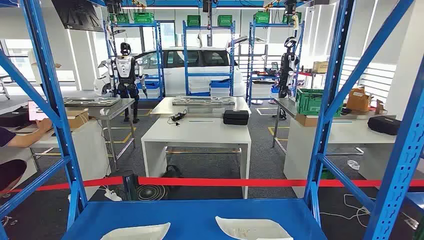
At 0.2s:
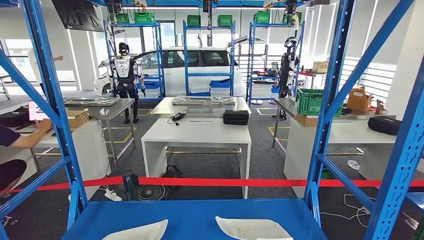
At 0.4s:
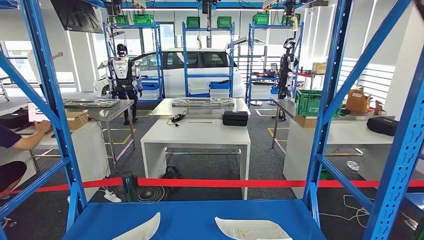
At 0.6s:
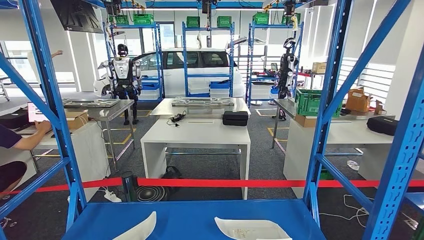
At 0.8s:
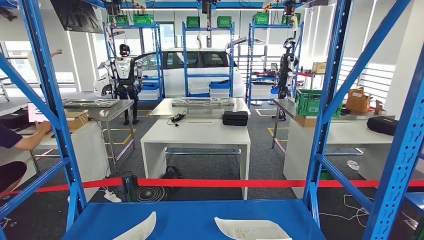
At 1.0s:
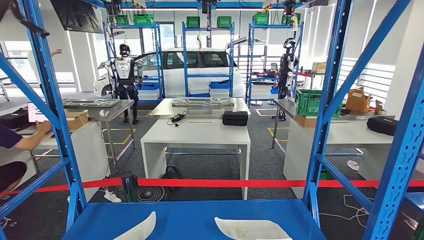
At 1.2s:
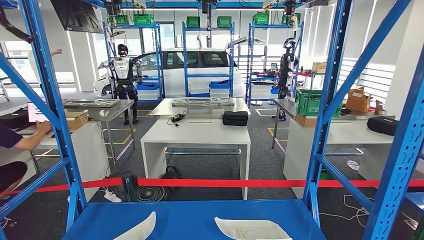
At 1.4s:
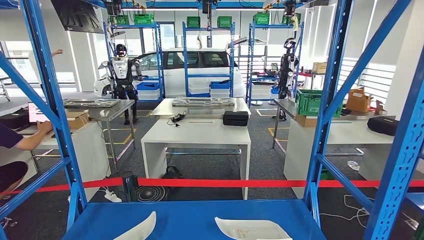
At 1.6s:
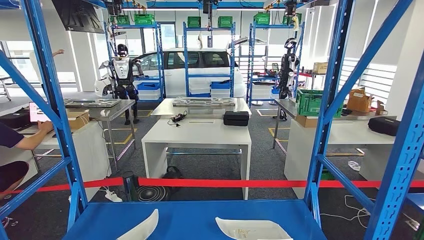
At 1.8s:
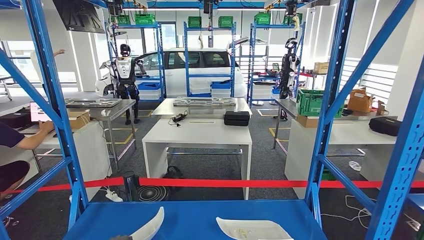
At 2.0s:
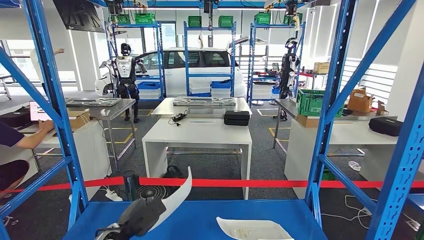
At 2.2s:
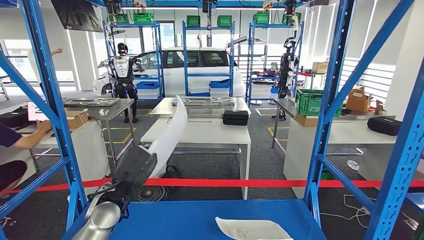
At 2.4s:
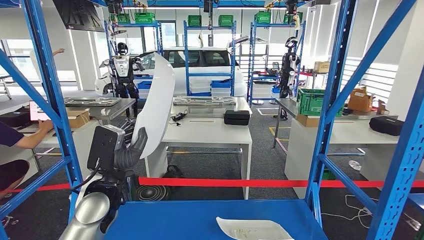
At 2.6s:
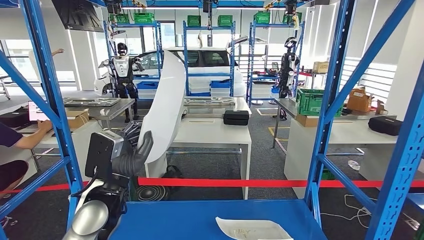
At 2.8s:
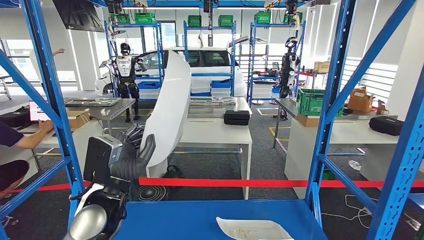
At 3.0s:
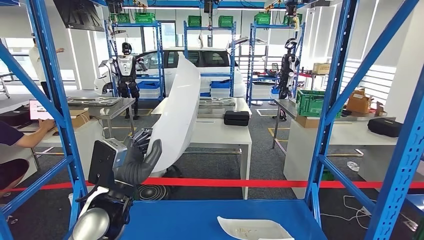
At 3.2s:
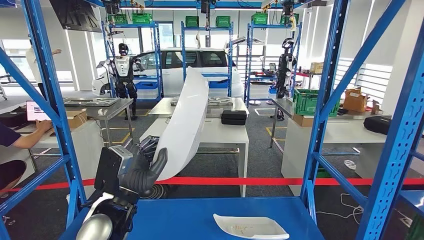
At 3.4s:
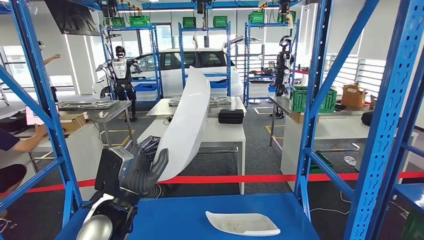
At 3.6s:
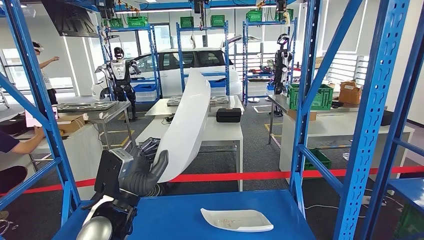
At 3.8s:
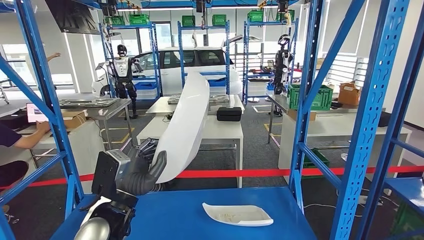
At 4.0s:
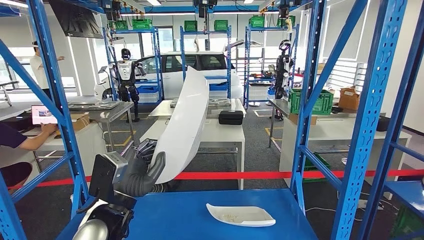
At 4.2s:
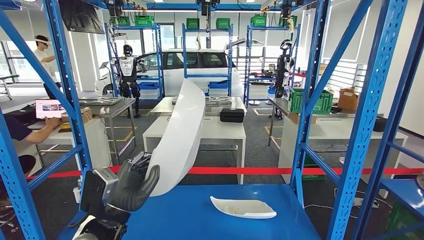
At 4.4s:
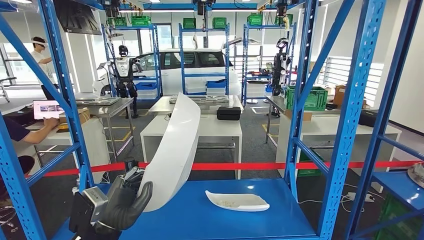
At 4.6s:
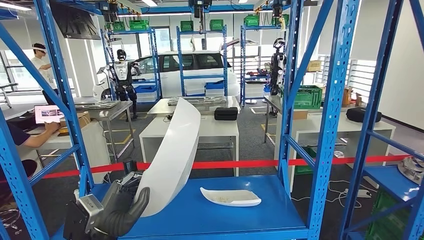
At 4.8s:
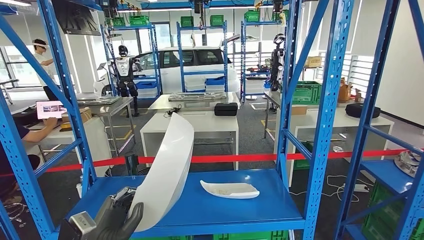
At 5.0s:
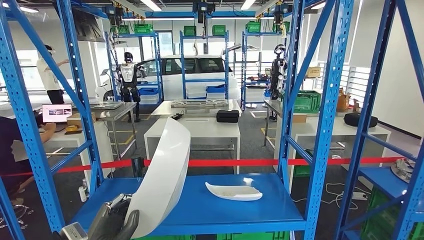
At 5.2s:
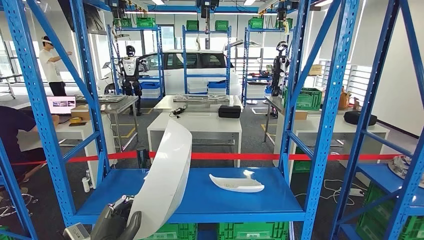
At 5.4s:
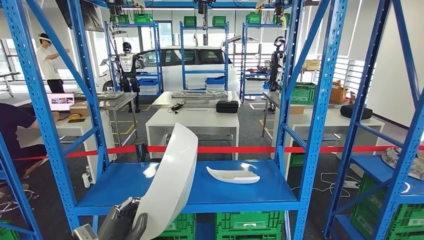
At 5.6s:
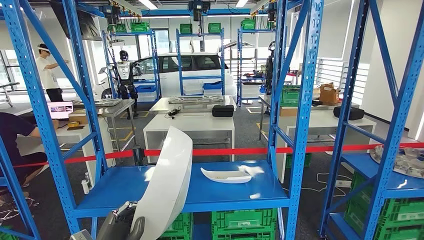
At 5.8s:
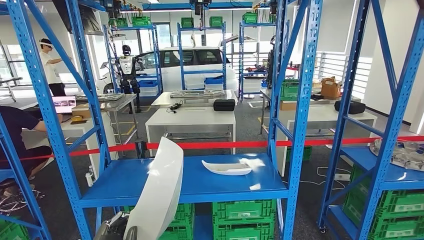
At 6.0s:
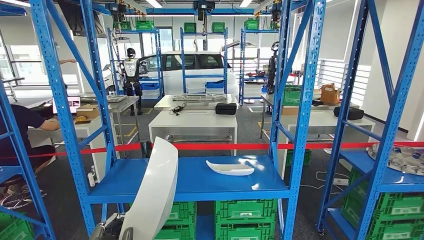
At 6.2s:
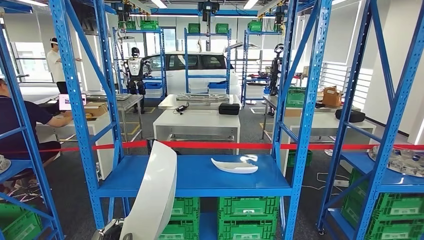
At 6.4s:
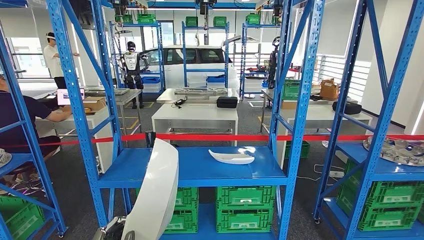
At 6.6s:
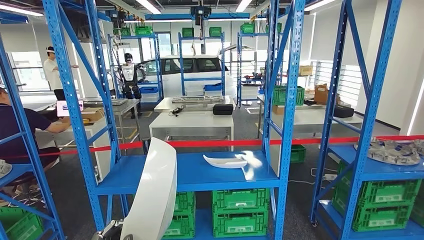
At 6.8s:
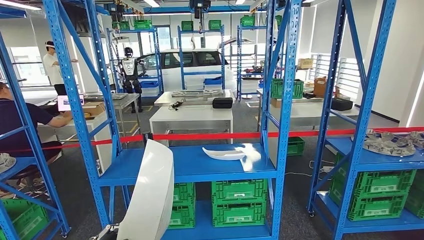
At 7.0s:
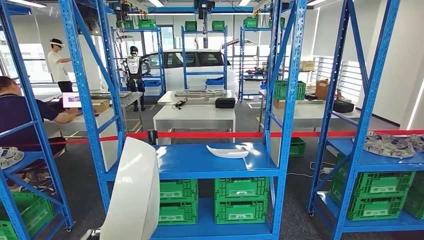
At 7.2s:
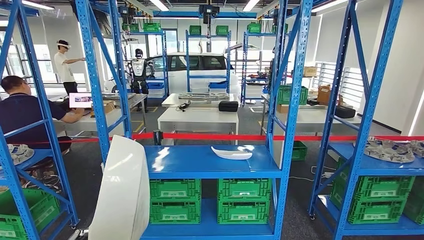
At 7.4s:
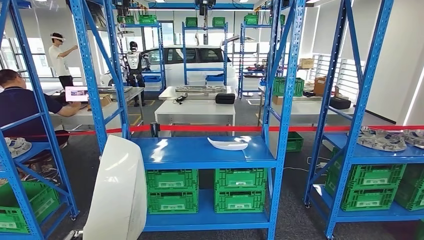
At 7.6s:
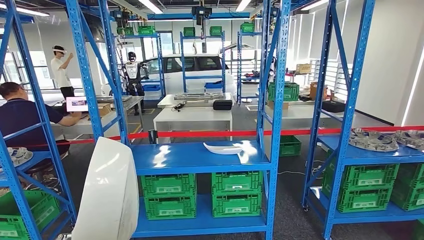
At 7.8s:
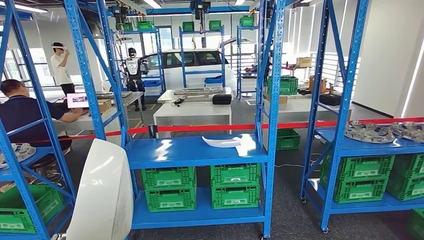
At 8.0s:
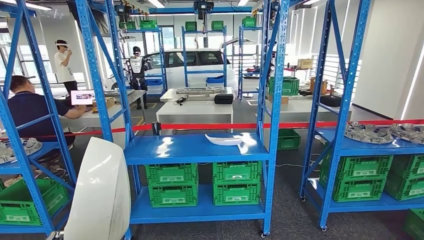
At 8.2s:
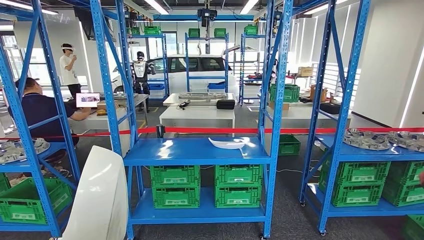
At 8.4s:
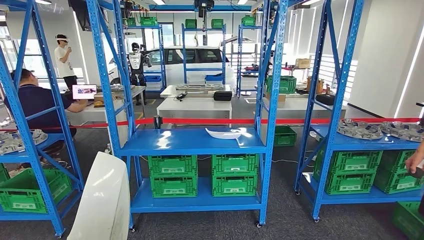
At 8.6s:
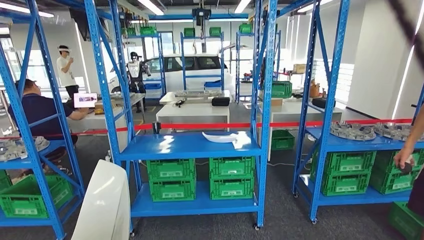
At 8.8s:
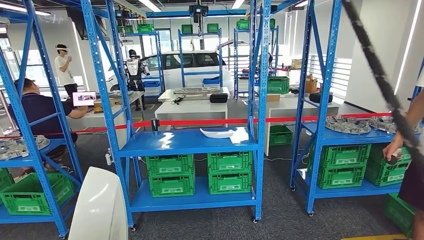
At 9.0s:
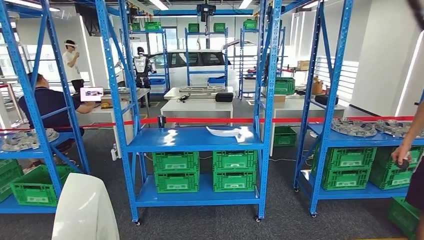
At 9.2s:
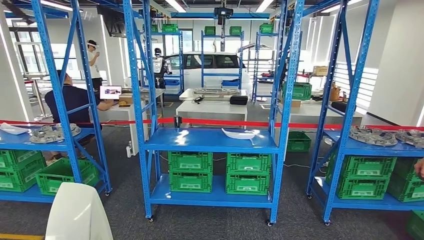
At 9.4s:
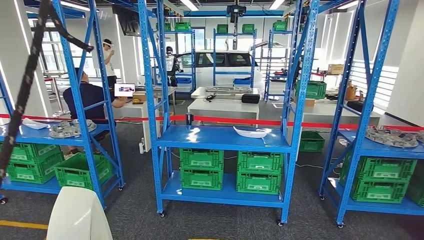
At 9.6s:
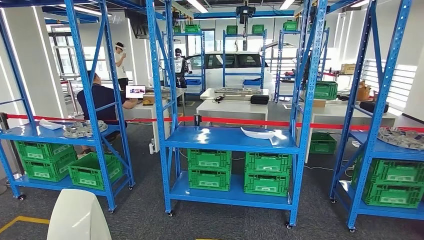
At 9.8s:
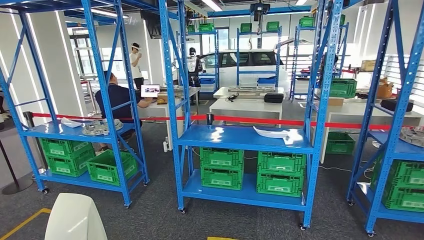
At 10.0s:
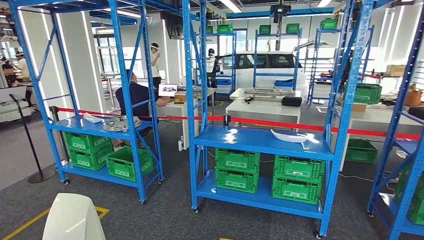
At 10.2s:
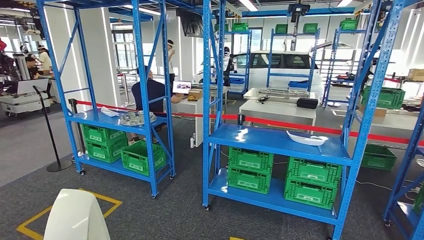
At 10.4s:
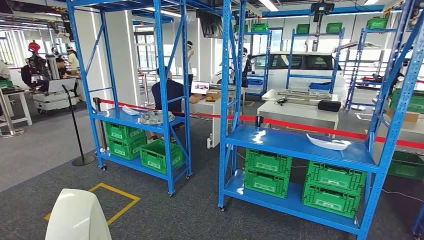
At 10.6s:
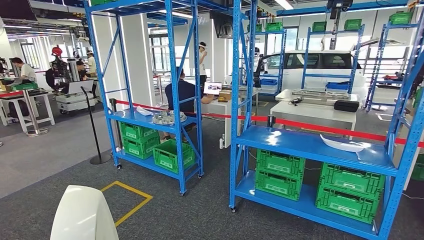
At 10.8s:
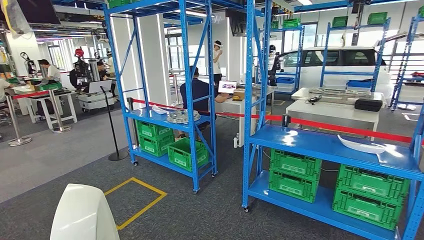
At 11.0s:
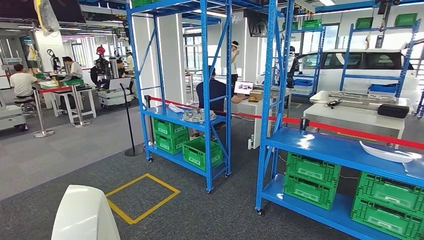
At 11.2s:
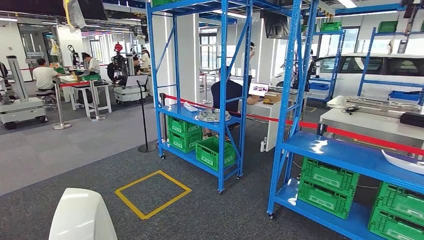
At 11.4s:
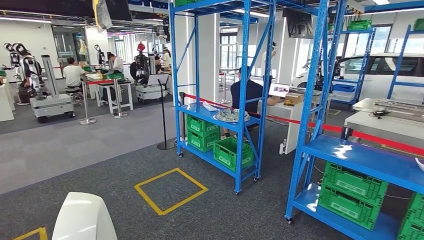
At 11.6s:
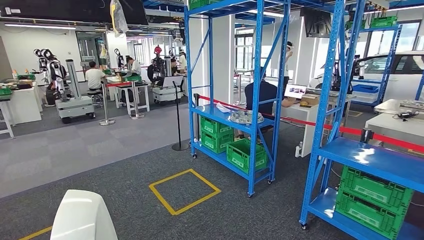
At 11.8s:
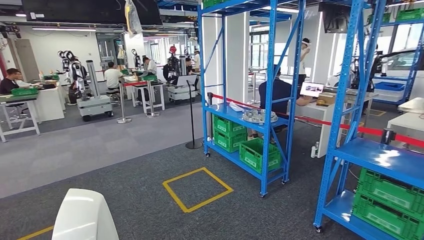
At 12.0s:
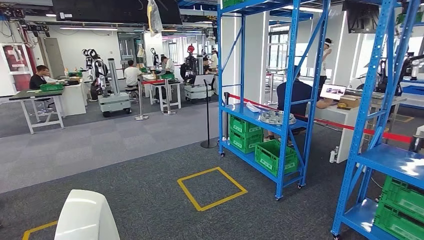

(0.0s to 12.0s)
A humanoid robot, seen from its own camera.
Step, 0.0s - 4.0s: Pick up the small component from the shelf.

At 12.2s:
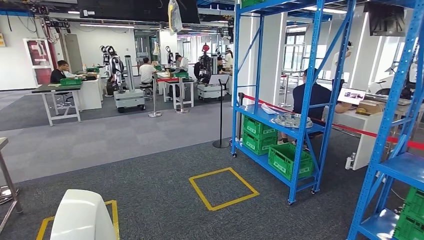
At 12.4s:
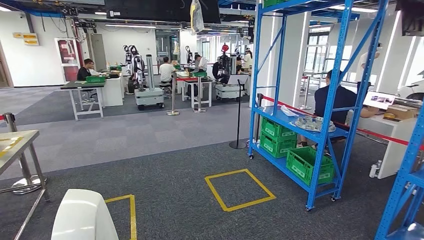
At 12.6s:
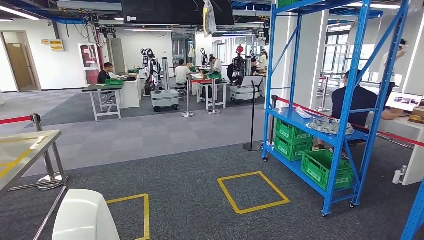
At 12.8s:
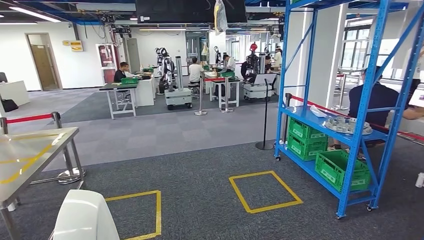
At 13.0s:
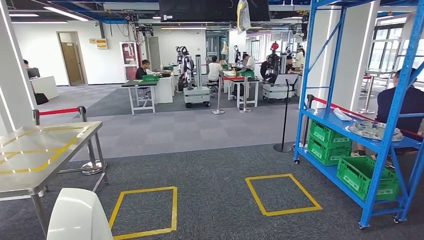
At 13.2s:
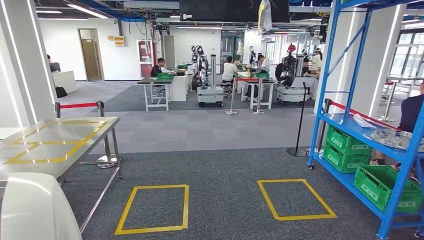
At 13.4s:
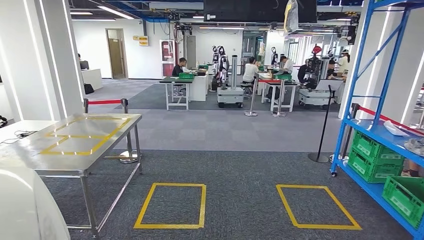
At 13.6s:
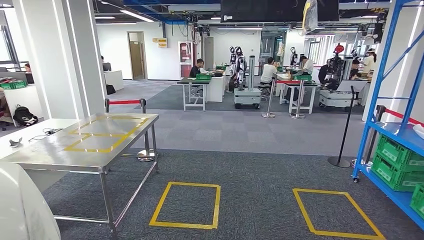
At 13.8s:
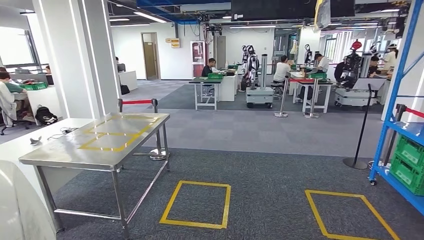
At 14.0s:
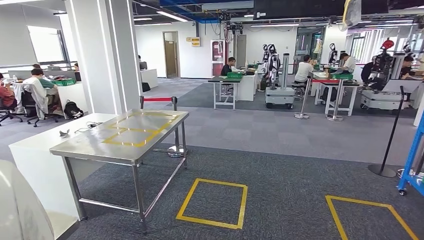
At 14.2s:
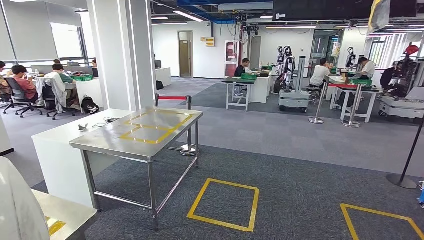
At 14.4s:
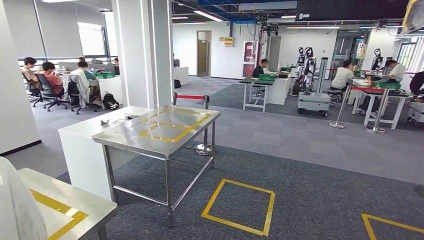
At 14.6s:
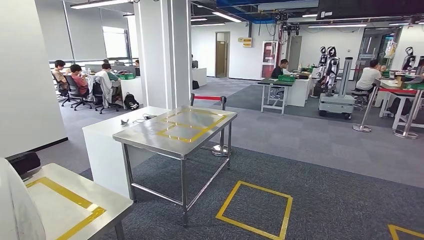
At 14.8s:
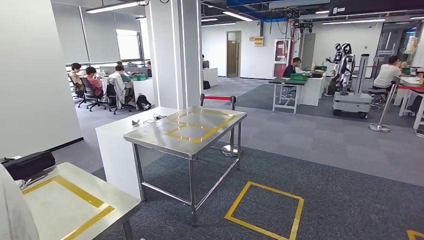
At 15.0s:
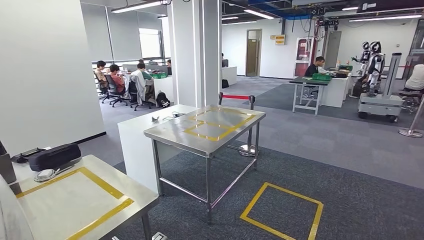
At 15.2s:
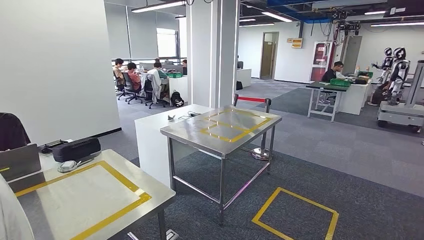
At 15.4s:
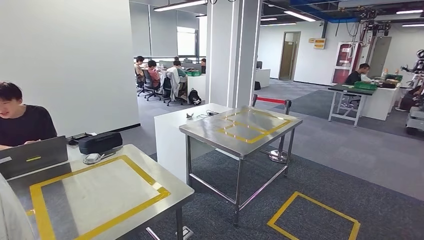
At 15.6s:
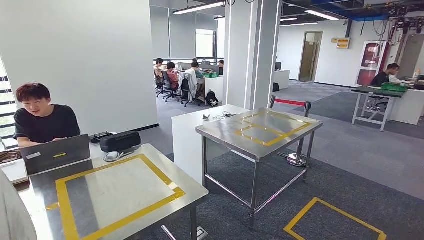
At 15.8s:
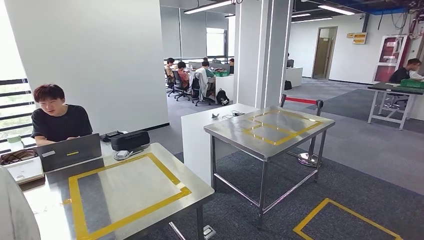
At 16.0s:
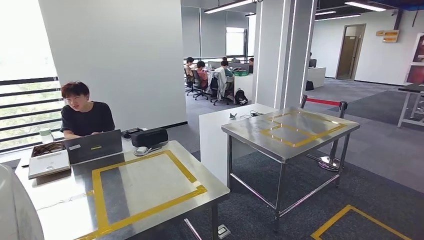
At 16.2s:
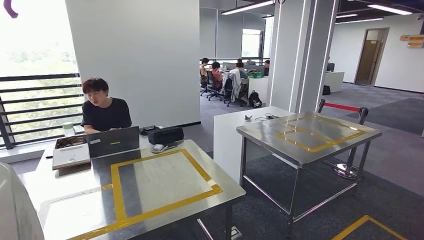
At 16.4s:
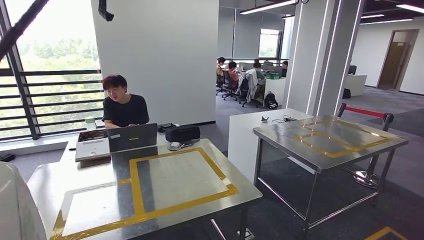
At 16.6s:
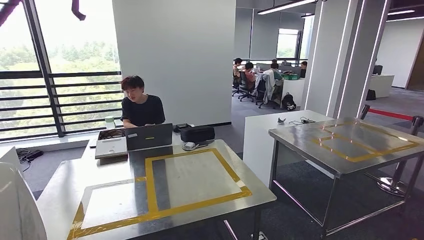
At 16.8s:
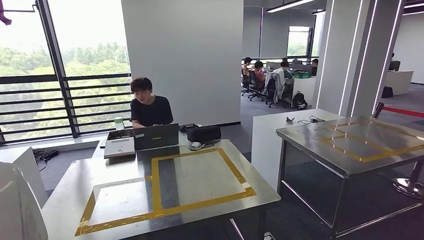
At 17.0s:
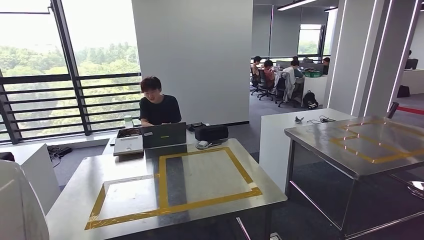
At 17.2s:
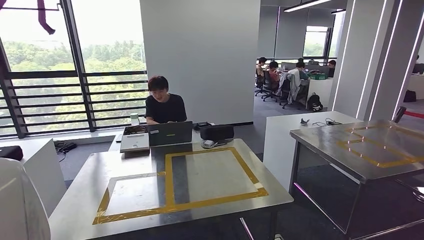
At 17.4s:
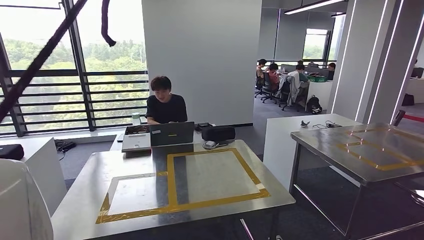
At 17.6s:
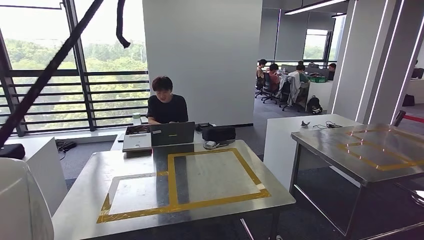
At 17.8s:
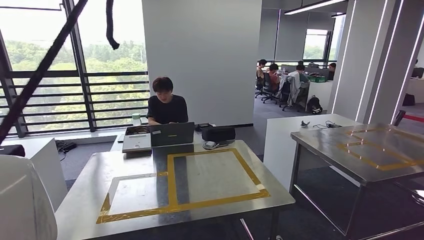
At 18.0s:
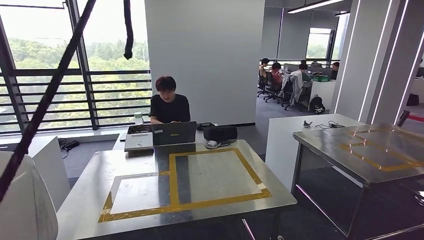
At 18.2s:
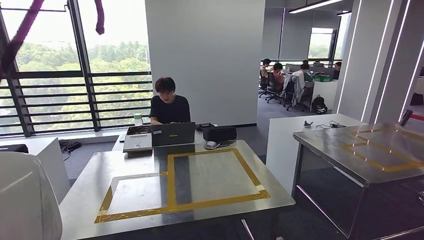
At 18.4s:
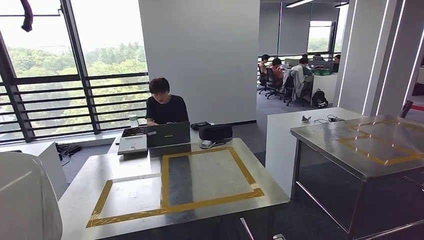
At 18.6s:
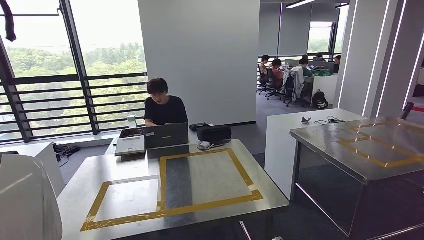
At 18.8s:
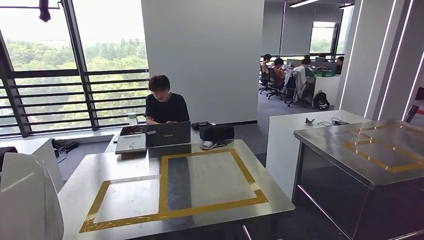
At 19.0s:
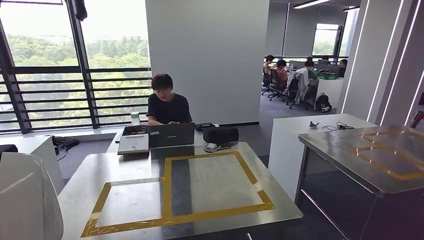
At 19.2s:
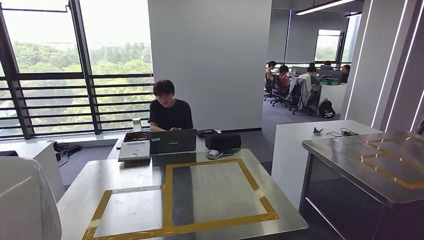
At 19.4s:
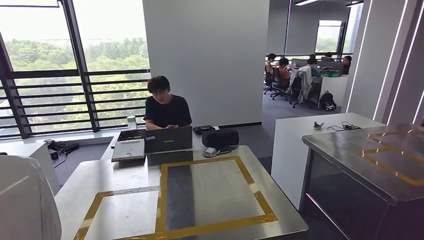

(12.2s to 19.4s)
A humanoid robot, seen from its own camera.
Step, 12.2s - 15.6s: Move the small component to the workbench.
